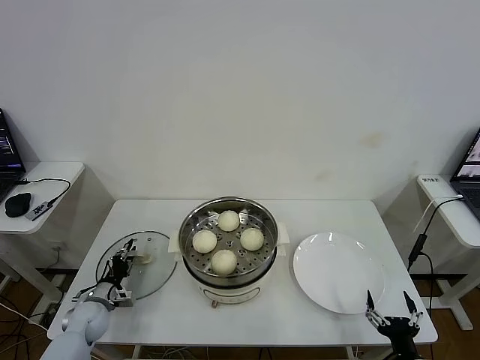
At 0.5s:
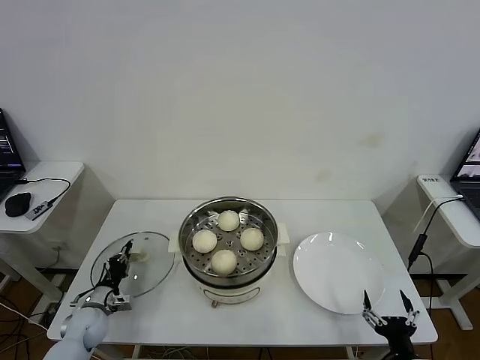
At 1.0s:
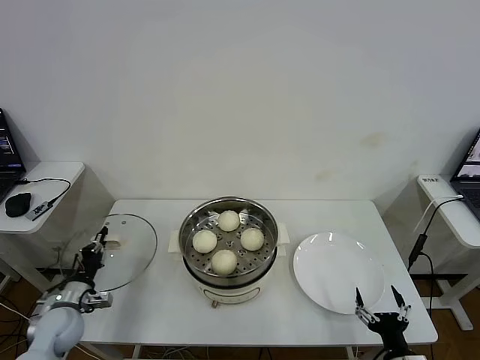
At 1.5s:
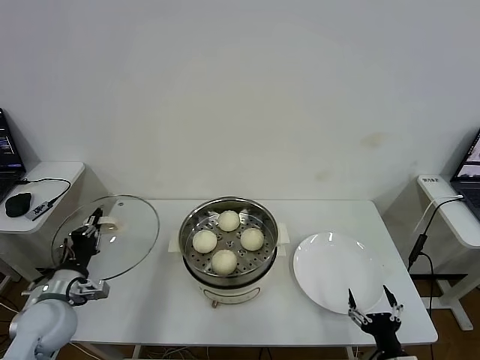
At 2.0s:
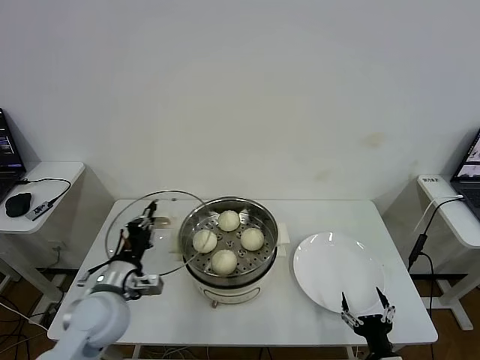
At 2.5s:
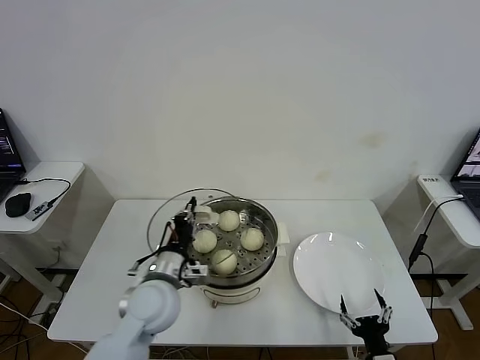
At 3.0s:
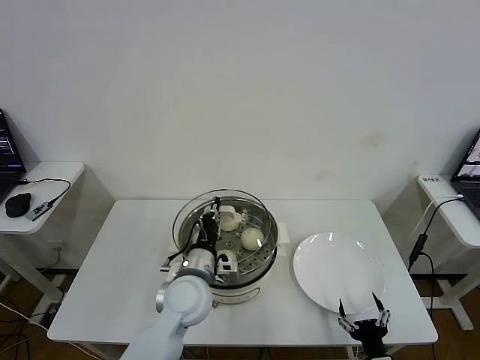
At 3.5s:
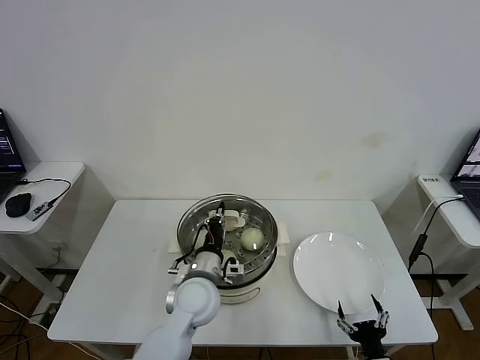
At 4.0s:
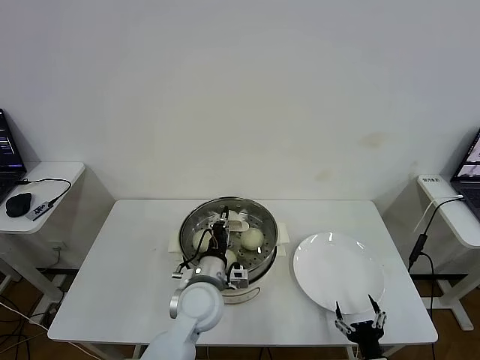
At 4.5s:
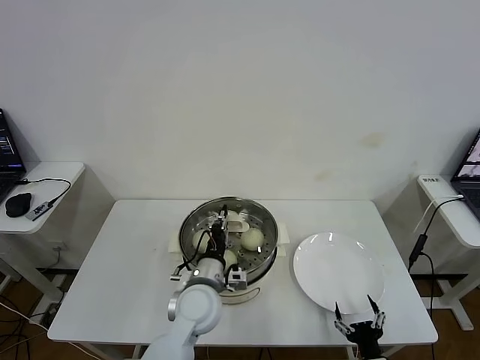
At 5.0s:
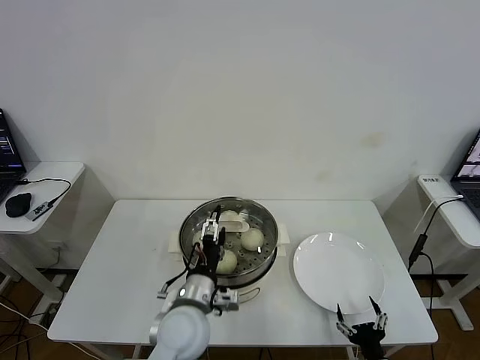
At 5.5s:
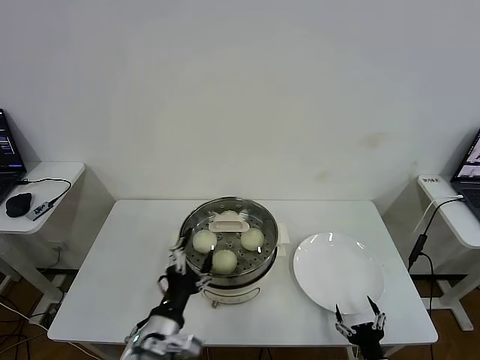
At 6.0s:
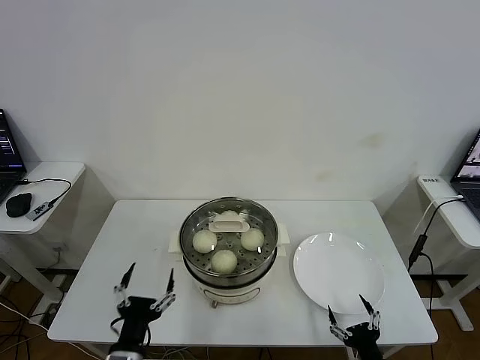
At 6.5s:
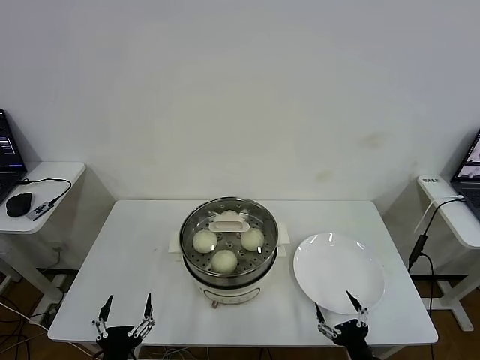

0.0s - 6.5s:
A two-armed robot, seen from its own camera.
Task of the whole recording: take steamed baozi put them in steamer then cover it.
Step, 0.5s - 4.5s: Place the pot lid on the steamer with left gripper.
0.0s - 2.0s: The left gripper travels upward and to the right by roughly 25 cm, and closes up.
2.0s - 4.5s: The left gripper goes some 20 cm to the right.
4.5s - 6.5s: The left gripper heads backward and to the left, covering roughly 30 cm, and opens up.

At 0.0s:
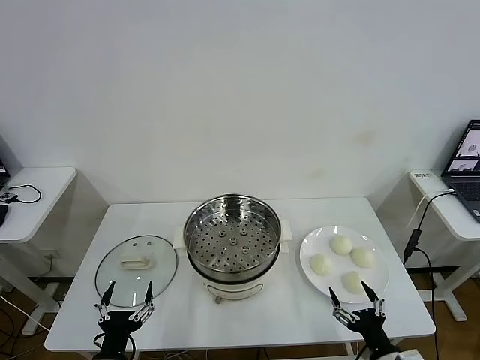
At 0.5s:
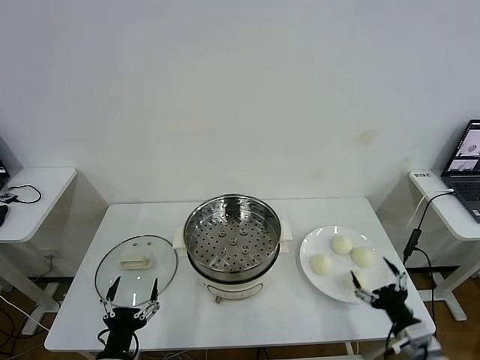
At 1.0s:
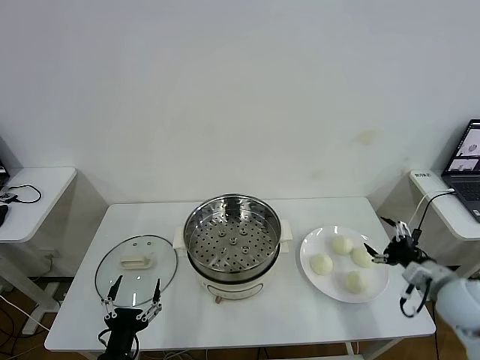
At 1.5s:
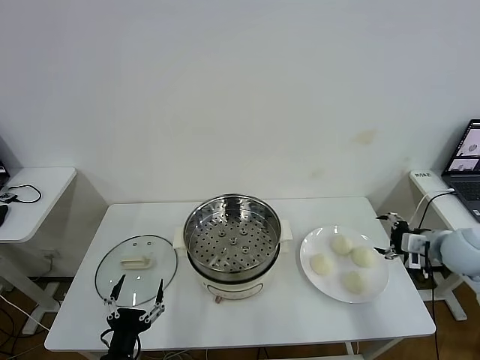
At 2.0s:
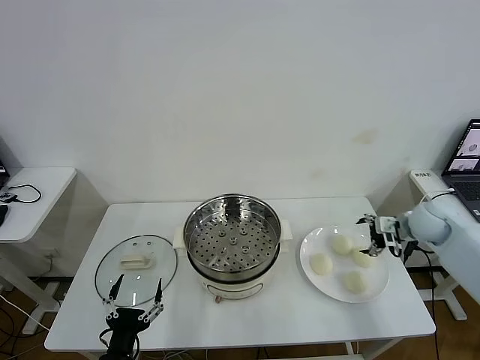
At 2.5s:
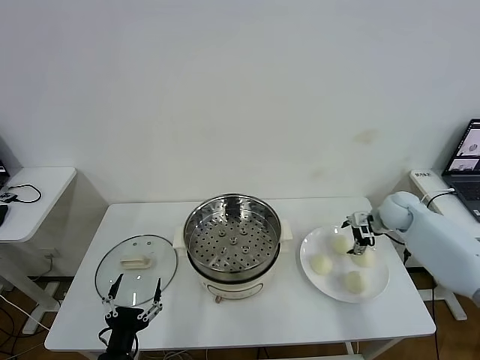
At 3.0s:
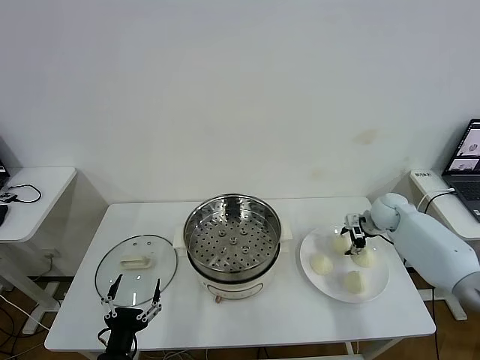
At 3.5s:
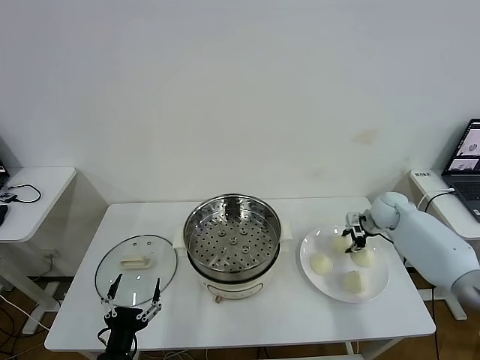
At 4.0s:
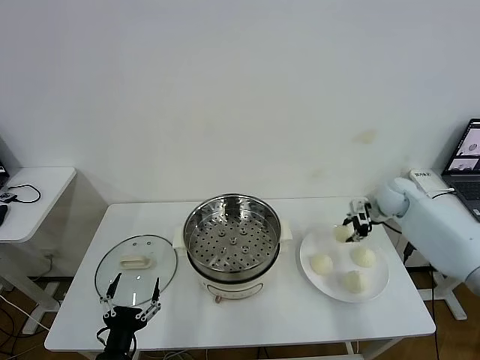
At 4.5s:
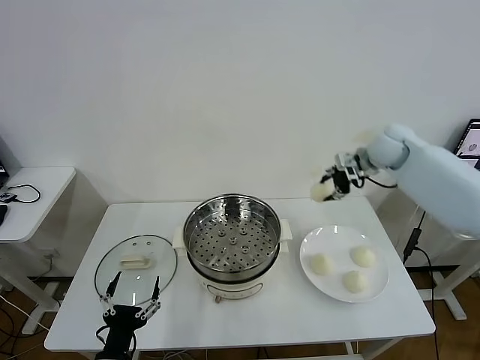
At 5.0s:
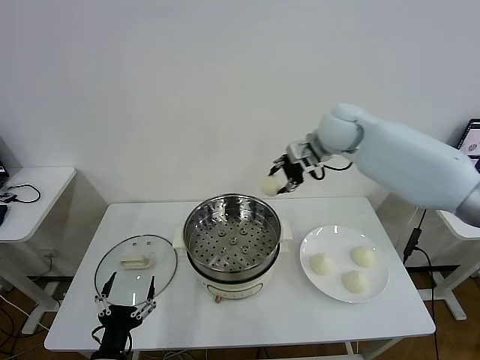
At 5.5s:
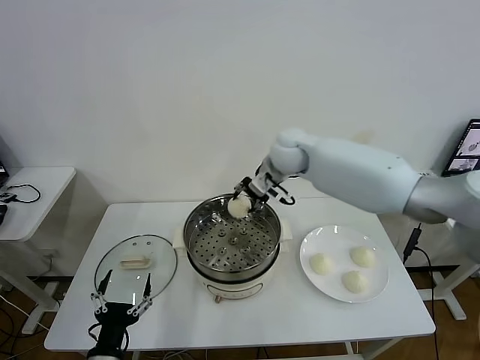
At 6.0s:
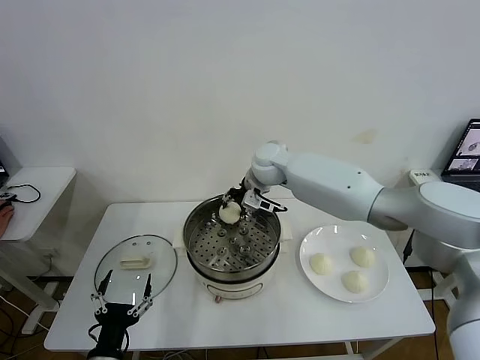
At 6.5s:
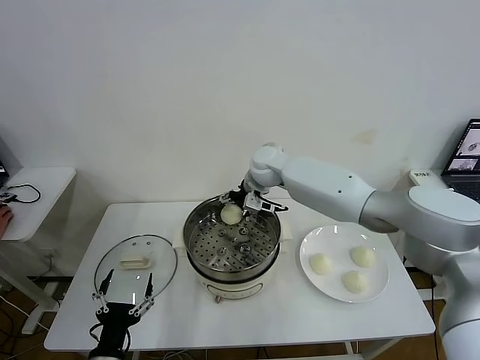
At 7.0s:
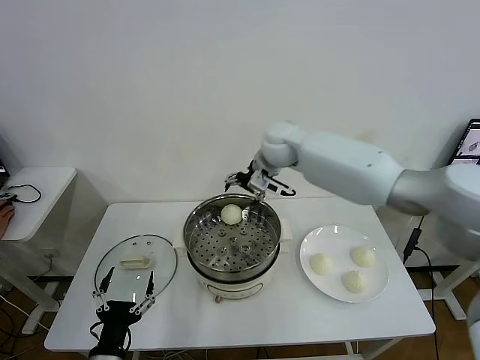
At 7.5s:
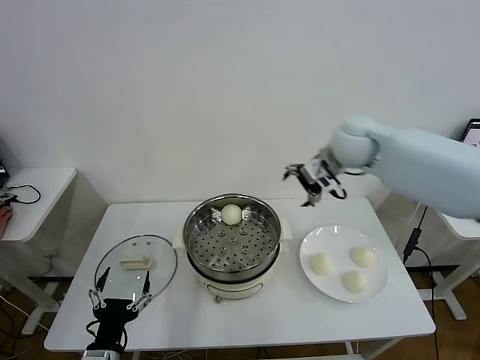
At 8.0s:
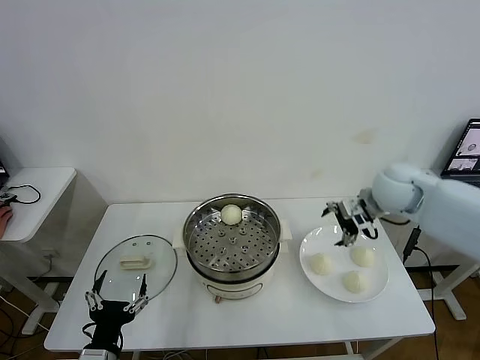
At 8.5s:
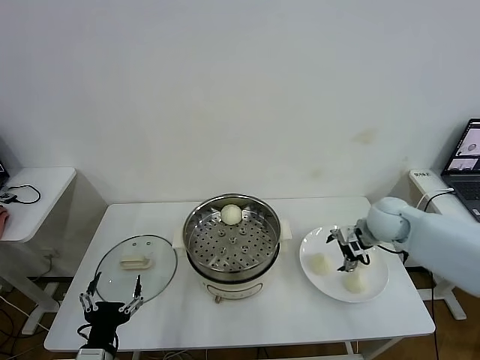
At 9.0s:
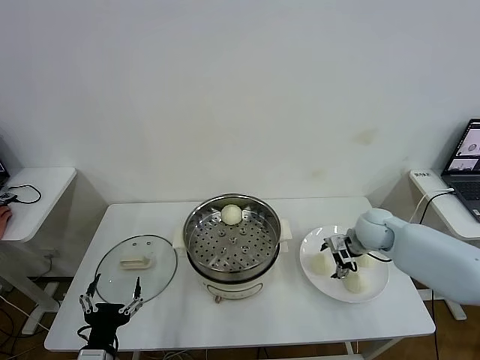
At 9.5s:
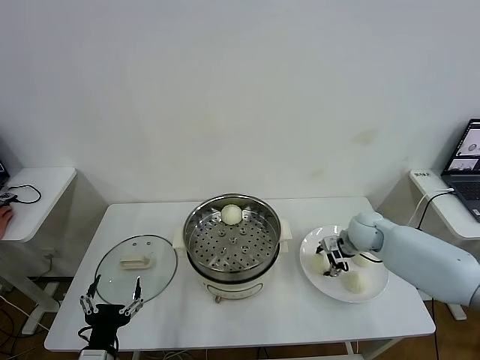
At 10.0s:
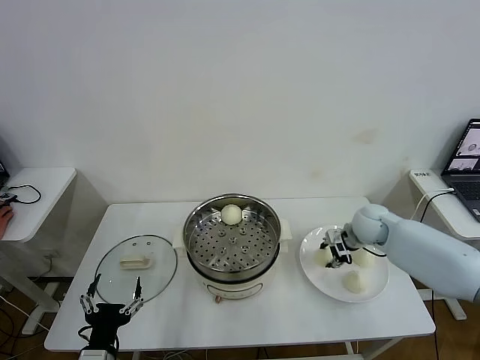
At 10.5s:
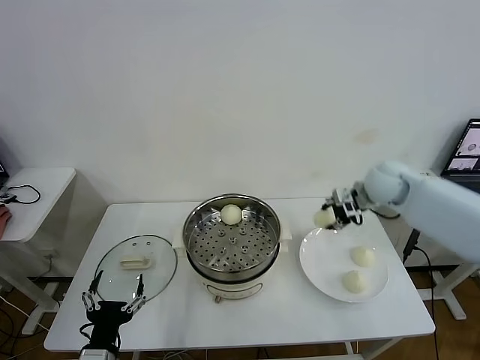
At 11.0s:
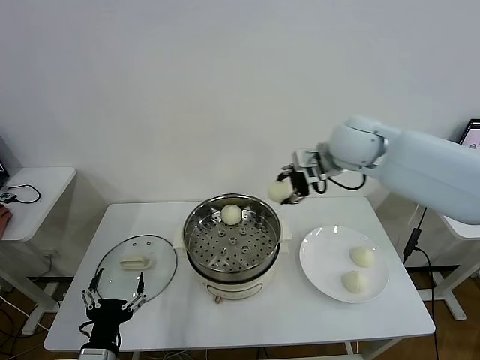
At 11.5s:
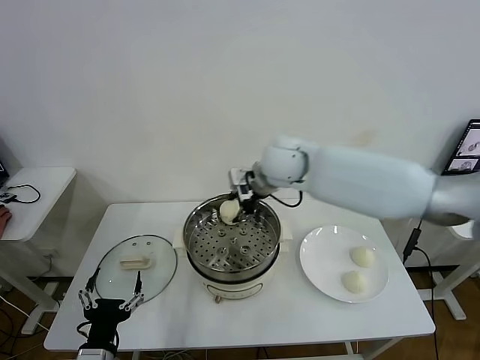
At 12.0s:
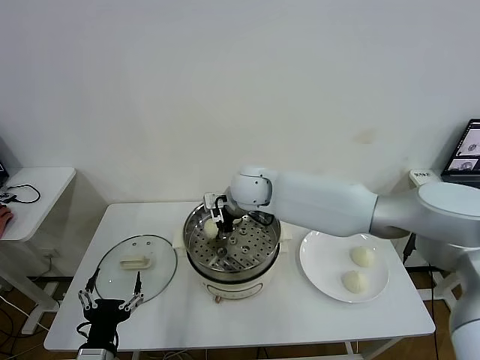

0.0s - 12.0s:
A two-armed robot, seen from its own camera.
Task of the whole recording: take steamed baozi put them in steamer then cover it.
Step, 0.0s - 3.0s: Grasp the baozi in the plate with right gripper.
Step, 3.5s - 6.0s: Place the baozi on the steamer with right gripper.
Step, 7.0s - 9.5s: Grasp the baozi in the plate with right gripper.
2.0s - 4.0s: The right gripper moves forward, some 10 cm, and closes its fingers.
4.0s - 6.0s: The right gripper travels to the left by roughly 35 cm.
6.0s - 8.0s: The right gripper moves to the right, about 25 cm, and opens.
8.0s - 10.0s: The right gripper travels downward by some 15 cm, and closes its fingers.
10.0s - 12.0s: The right gripper is displaced to the left by some 30 cm.

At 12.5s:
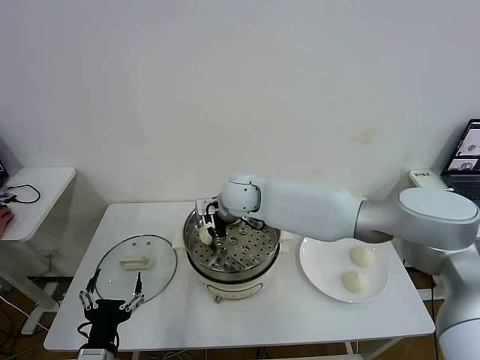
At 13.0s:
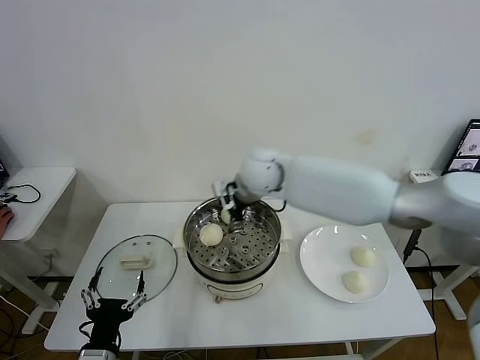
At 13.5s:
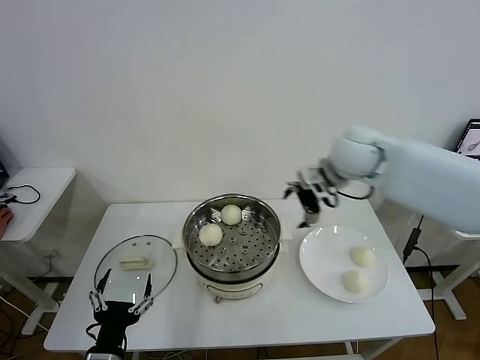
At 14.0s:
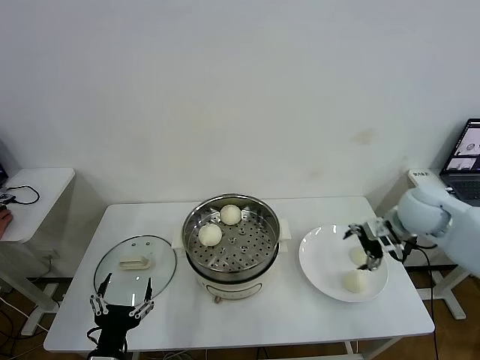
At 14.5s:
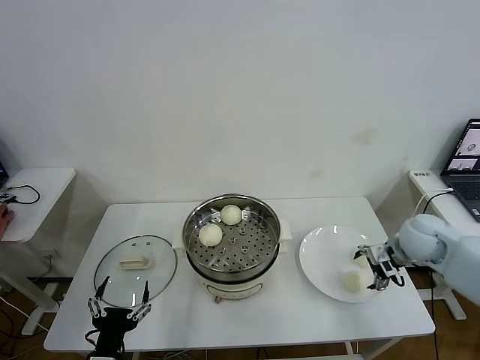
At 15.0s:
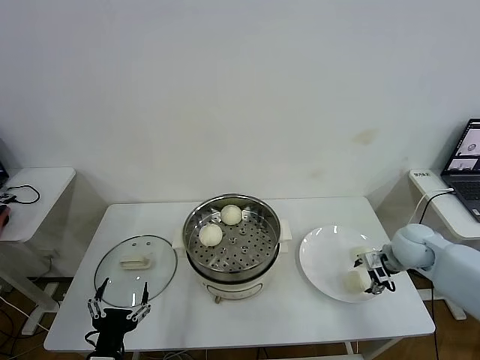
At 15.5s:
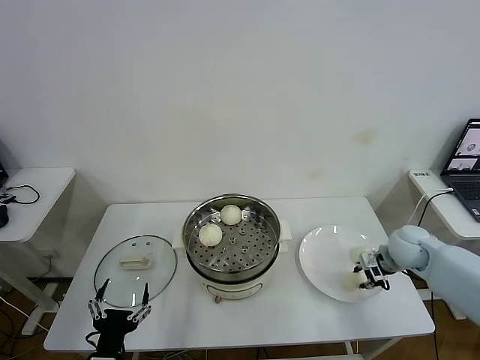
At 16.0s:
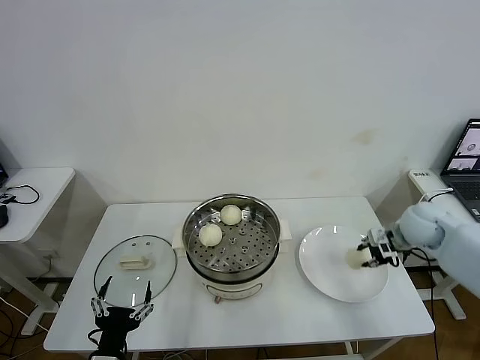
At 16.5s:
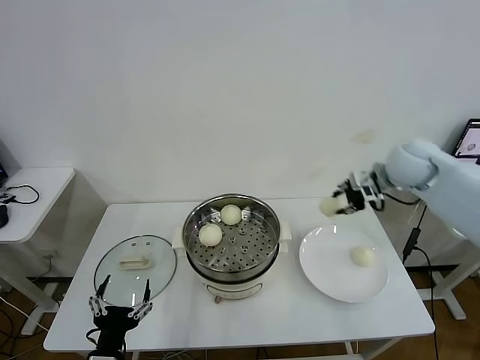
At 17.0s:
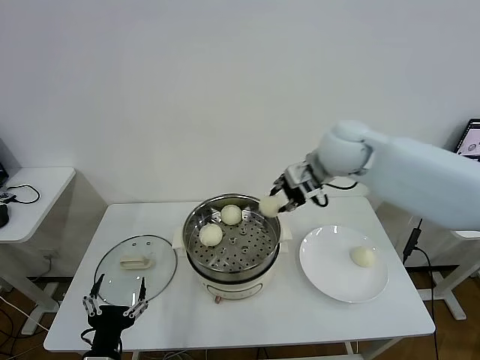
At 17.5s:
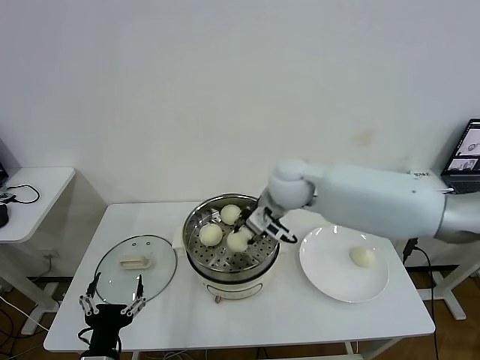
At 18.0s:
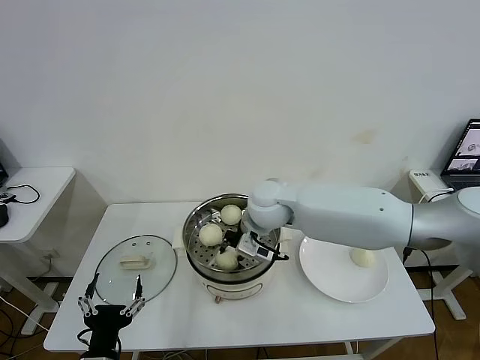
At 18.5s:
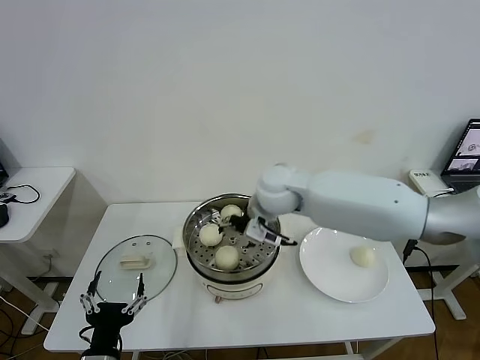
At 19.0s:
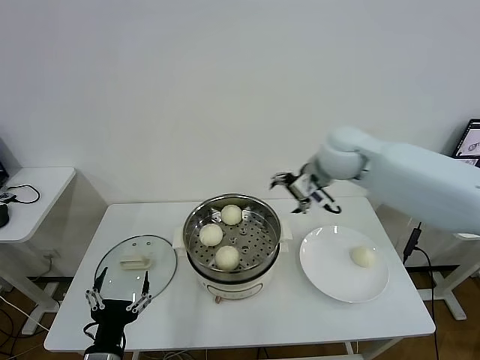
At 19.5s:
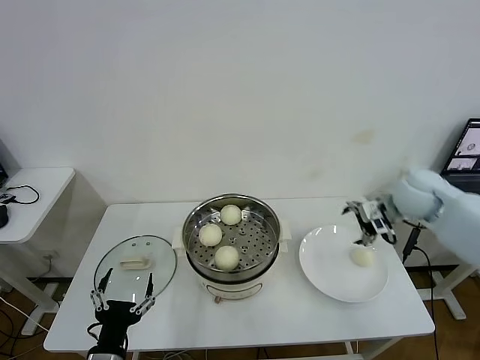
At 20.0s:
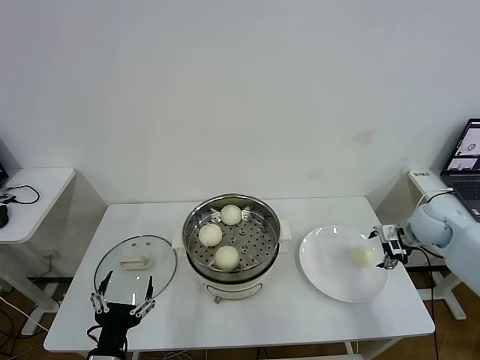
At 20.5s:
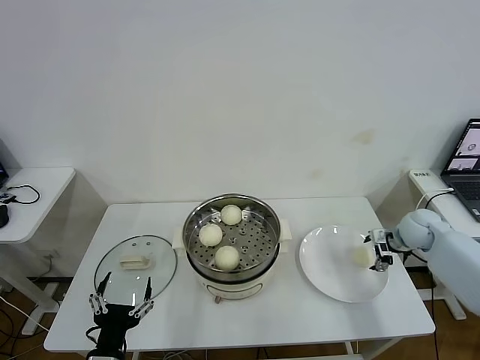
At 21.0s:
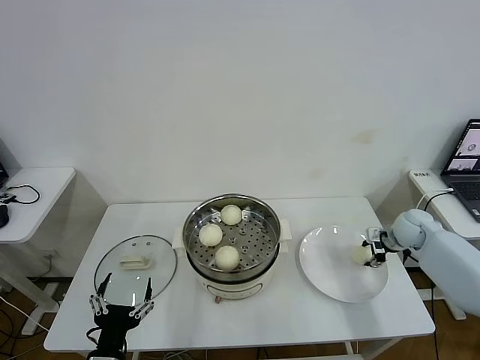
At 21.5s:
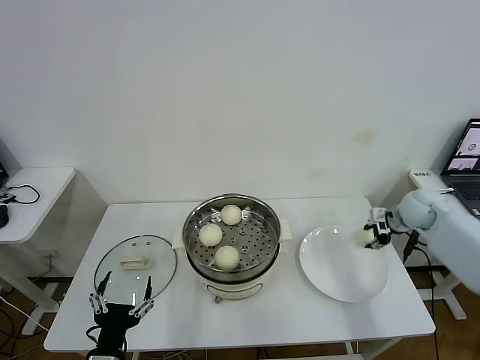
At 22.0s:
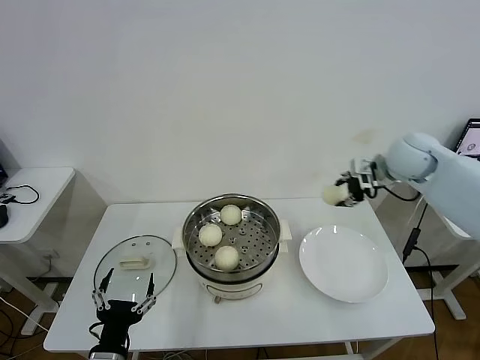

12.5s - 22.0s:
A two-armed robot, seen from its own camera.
Task of the whole recording: take steamed baozi put them in steamer then cover it.
Step, 13.0s - 15.5s: Grasp the baozi in the plate with right gripper.
Step, 16.0s - 18.0s: Place the baozi on the steamer with right gripper.
Step, 18.5s - 21.0s: Grasp the baozi in the plate with right gripper.
12.5s - 14.5s: The right gripper shifts about 40 cm to the right.
14.5s - 16.5s: The right gripper heads upward and forward, covering approximately 15 cm, and closes.
16.5s - 18.0s: The right gripper is displaced to the left by about 30 cm.
18.0s - 20.0s: The right gripper heads to the right, covering about 40 cm, and opens.
20.0s - 22.0s: The right gripper moves upward, to the left and forward, some 15 cm, and closes up.
